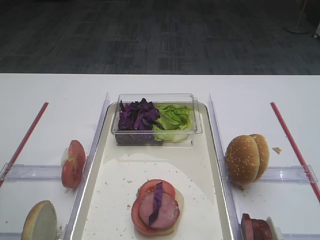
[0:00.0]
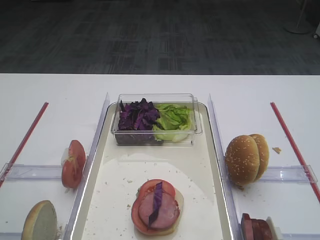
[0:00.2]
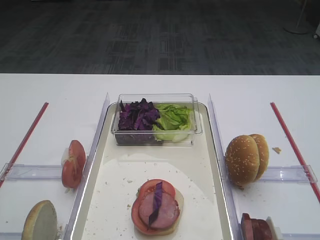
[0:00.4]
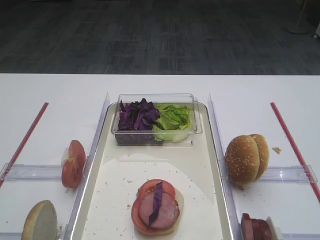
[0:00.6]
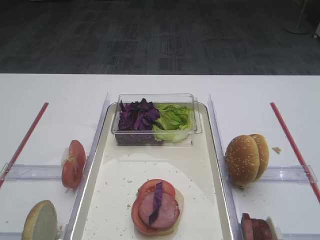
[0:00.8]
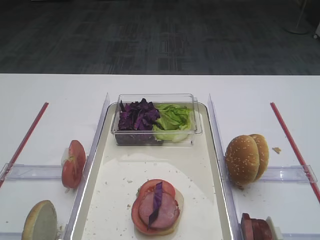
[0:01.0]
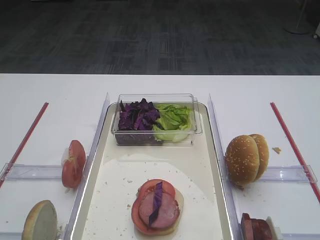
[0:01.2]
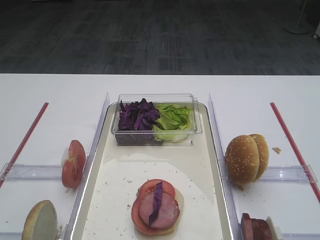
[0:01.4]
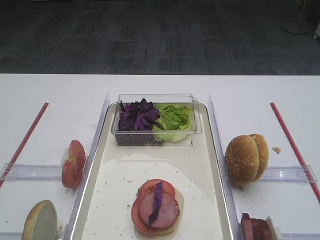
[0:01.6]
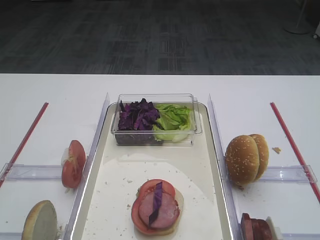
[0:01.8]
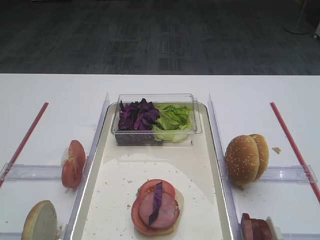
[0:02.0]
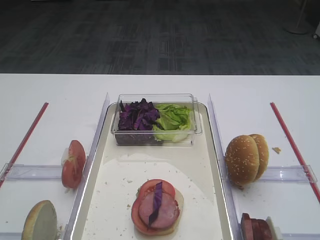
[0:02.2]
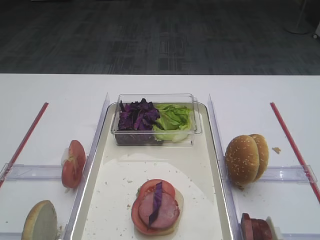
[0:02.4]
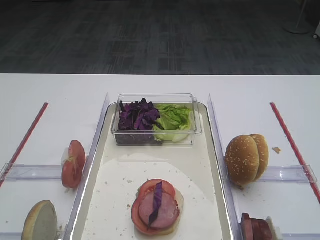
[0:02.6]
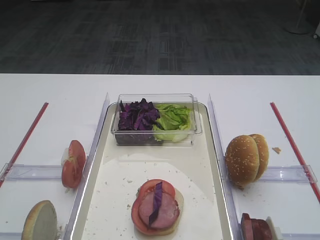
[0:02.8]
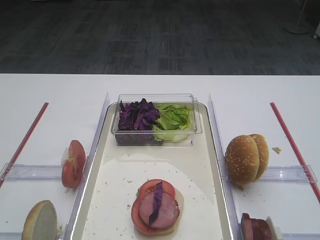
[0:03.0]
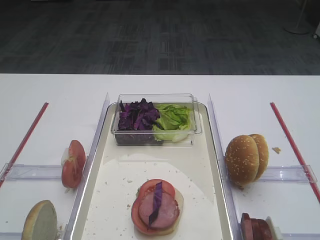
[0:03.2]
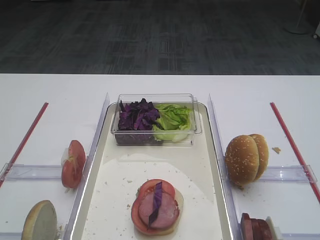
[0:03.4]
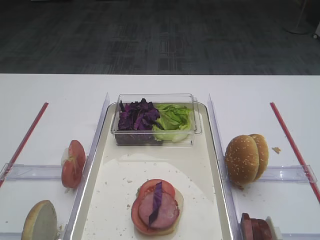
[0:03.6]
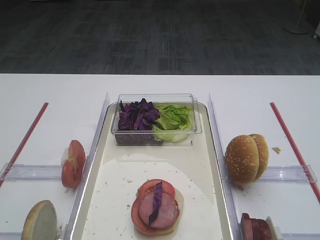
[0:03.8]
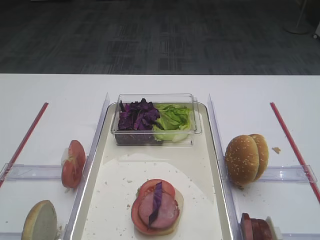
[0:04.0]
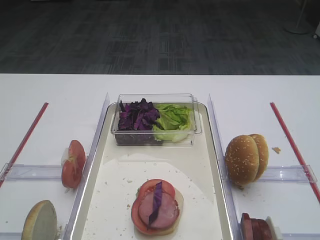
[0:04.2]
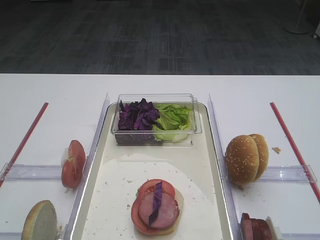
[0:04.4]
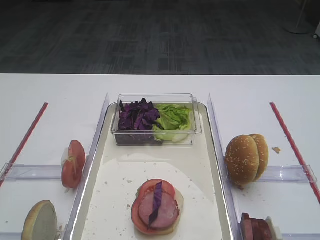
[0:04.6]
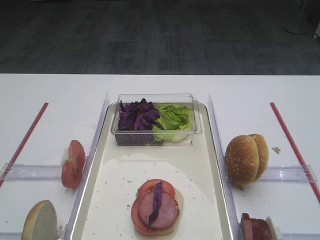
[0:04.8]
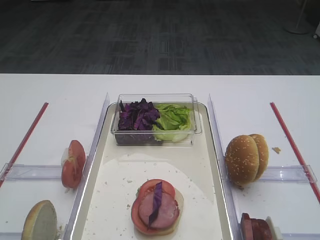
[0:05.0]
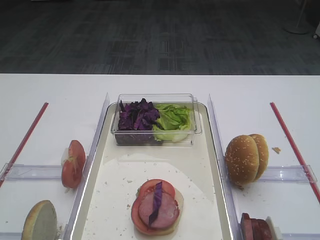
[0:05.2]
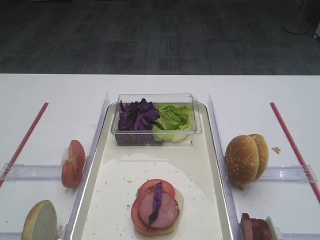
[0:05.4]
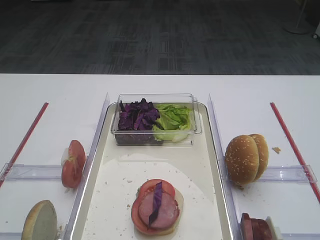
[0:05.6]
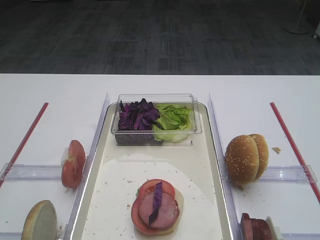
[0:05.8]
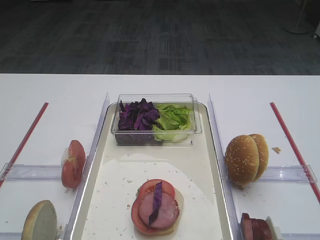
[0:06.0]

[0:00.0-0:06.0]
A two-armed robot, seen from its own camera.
0:01.6 to 0:06.0: Both grippers stay about where they are.
